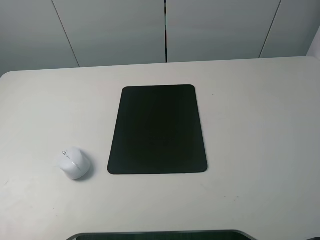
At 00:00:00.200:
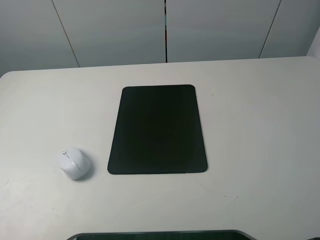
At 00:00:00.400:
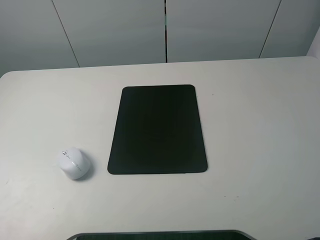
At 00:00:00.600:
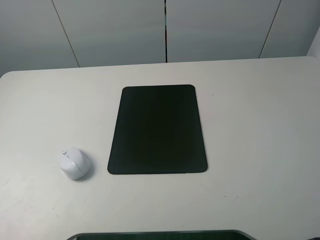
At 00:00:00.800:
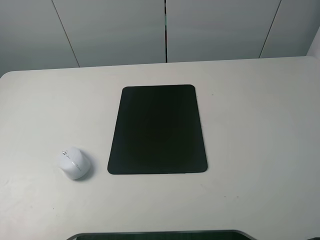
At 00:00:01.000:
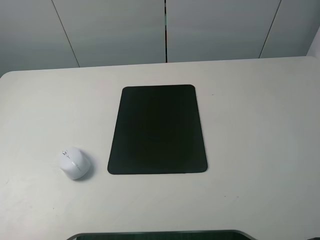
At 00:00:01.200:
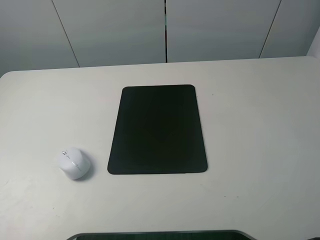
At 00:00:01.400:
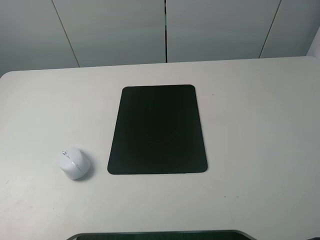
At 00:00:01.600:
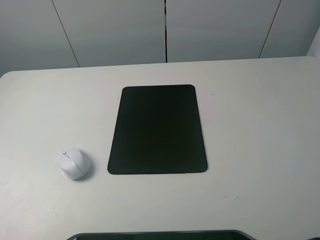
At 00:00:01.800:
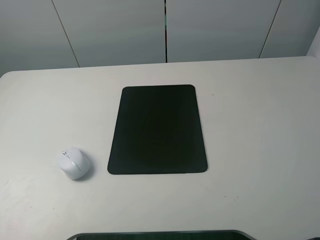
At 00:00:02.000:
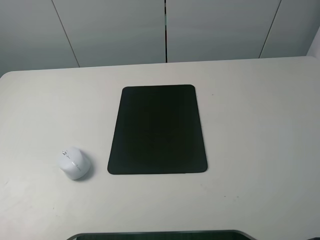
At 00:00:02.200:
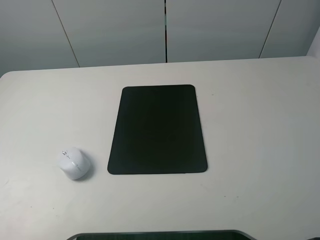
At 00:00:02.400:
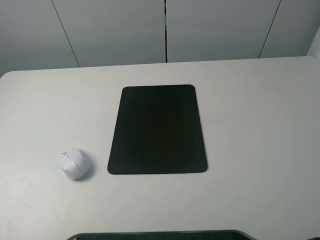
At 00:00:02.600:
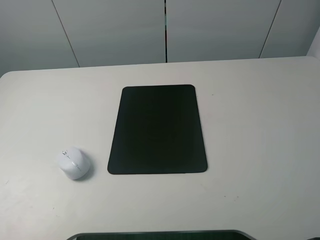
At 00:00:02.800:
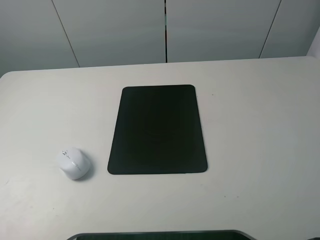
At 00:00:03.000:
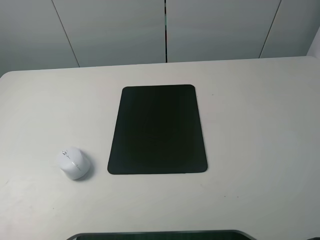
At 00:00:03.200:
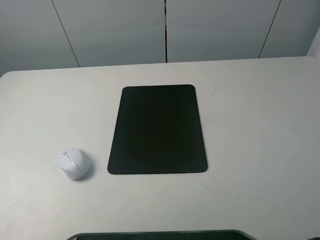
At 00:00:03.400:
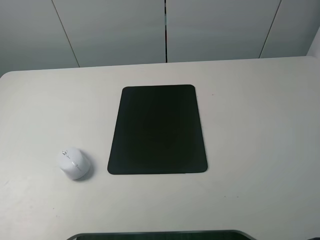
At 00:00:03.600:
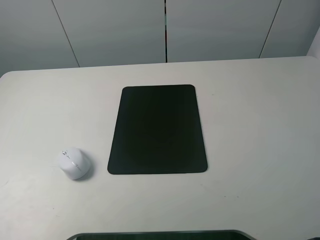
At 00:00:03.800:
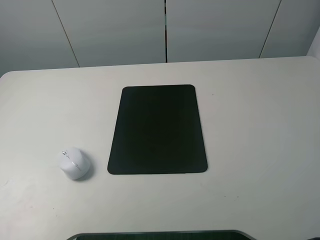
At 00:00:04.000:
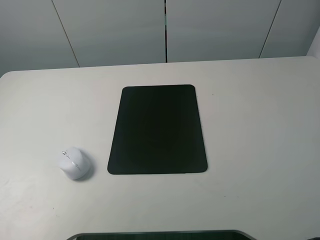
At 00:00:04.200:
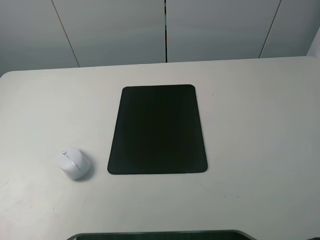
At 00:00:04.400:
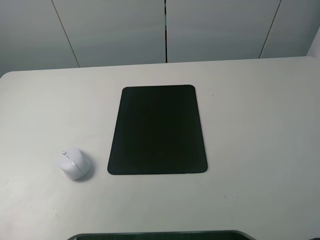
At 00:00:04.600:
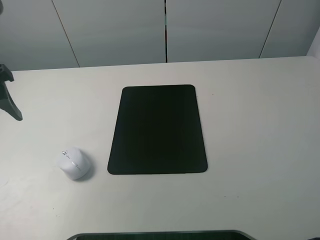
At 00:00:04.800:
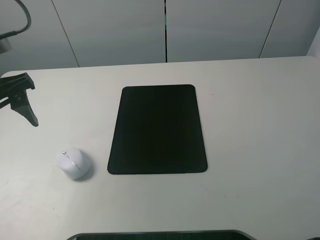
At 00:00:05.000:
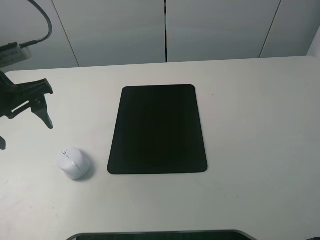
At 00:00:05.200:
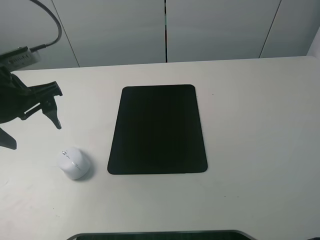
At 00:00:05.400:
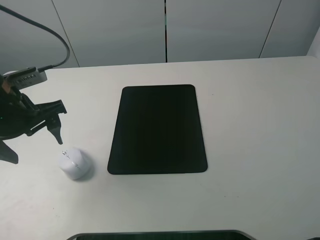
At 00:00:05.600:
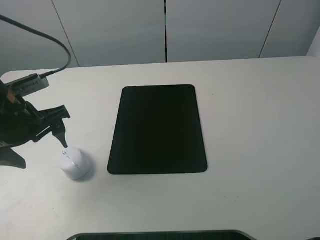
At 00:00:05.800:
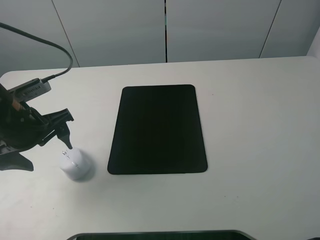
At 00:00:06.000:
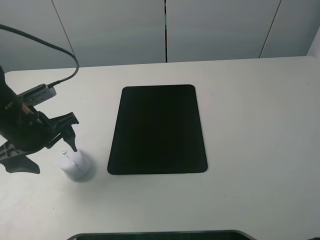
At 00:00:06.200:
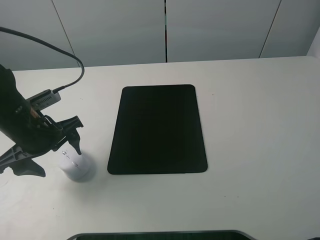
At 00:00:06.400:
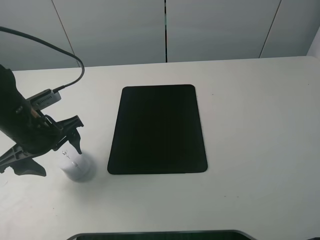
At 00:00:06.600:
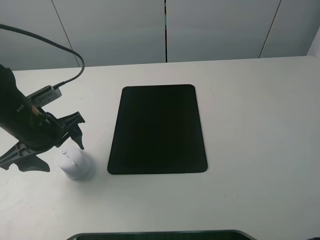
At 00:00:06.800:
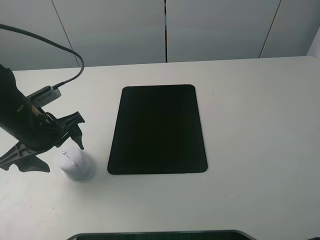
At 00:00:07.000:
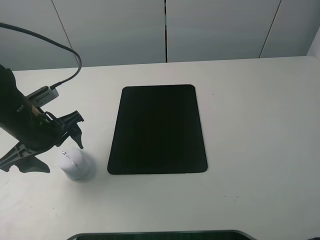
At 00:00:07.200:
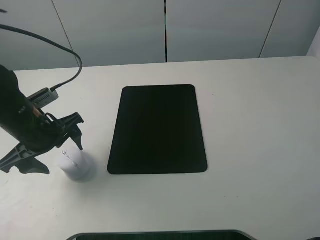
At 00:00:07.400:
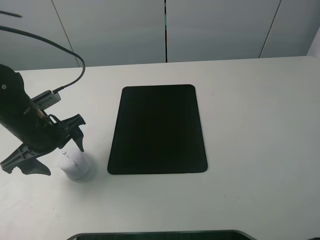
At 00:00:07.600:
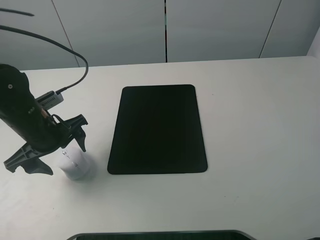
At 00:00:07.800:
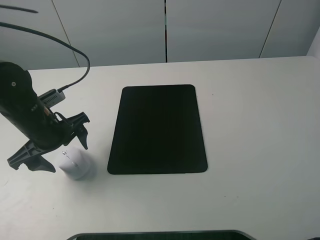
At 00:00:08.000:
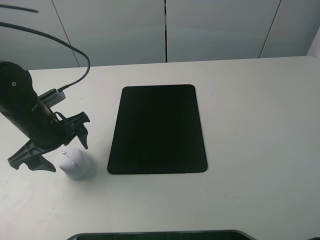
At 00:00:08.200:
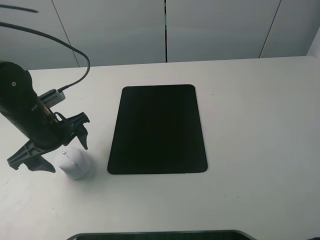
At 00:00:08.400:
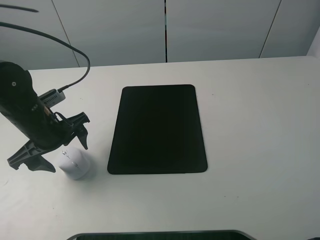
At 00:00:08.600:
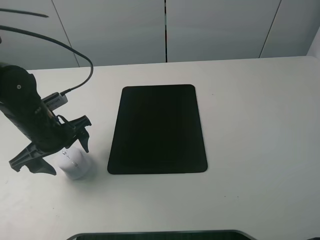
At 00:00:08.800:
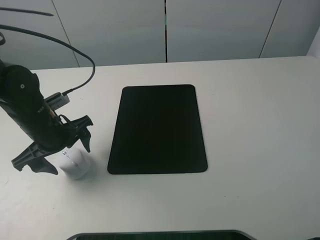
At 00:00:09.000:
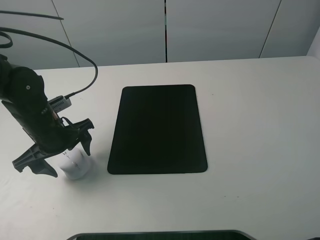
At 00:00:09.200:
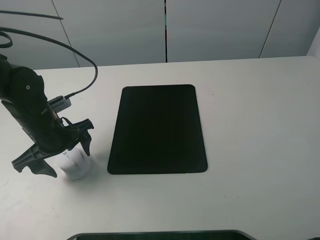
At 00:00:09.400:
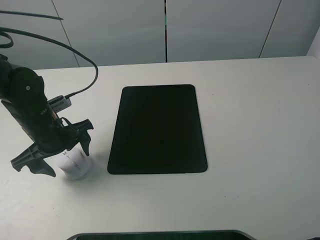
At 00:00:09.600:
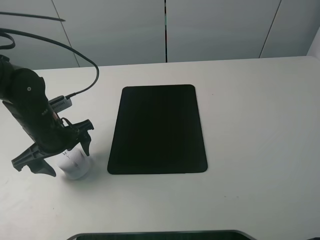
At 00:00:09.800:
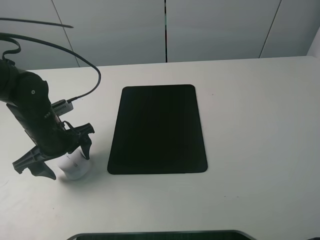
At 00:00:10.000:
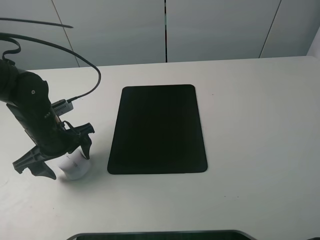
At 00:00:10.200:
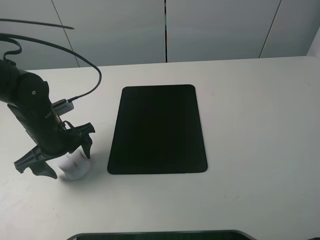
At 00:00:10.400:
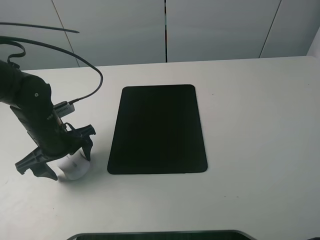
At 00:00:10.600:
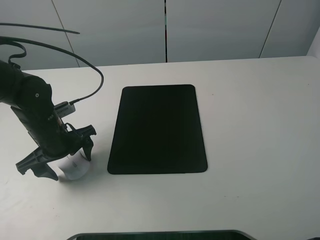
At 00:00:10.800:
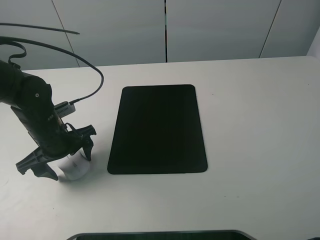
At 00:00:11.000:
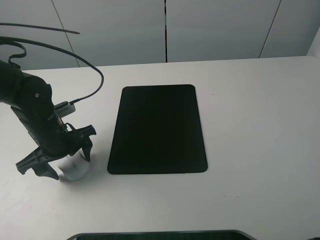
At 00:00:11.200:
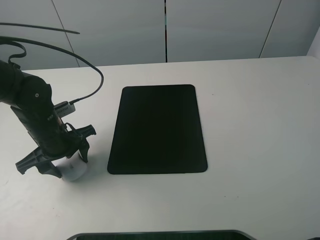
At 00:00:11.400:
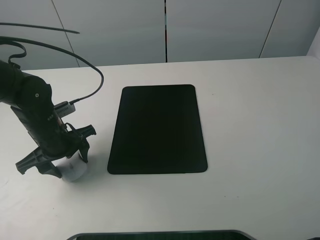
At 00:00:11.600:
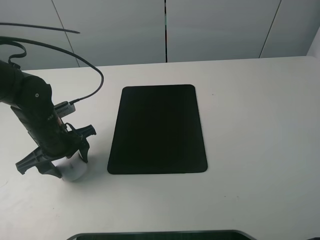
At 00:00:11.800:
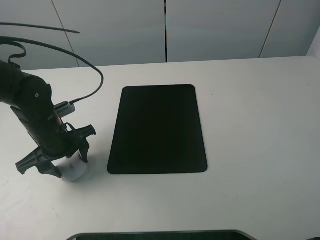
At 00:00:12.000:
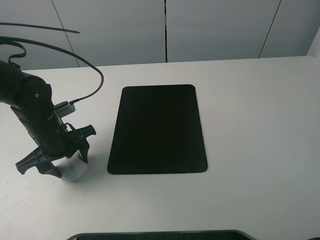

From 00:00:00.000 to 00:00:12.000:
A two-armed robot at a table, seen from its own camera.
Step, from 00:00:00.000 to 00:00:11.600: Grasp the mouse with the left gripper.
From 00:00:00.000 to 00:00:01.600: The two grippers keep their place.
From 00:00:03.000 to 00:00:04.400: The left gripper moves forward, some 15 cm.
From 00:00:04.400 to 00:00:06.000: The left gripper travels downward and to the right by some 15 cm.
From 00:00:06.000 to 00:00:09.000: The grippers stay close to where they were, moving slightly.
From 00:00:09.000 to 00:00:10.400: The grippers make only small movements.
From 00:00:10.400 to 00:00:12.000: The left gripper closes its fingers.

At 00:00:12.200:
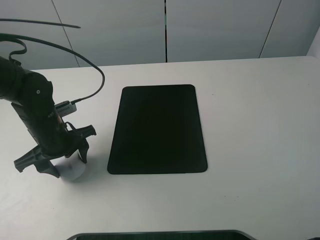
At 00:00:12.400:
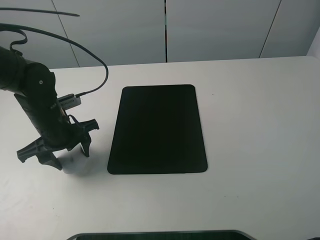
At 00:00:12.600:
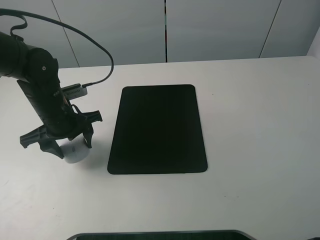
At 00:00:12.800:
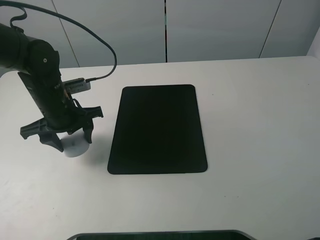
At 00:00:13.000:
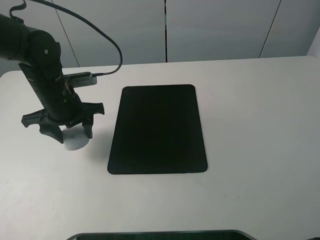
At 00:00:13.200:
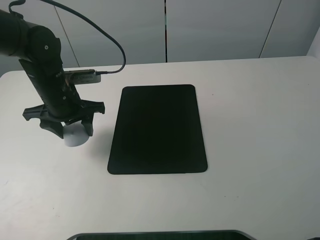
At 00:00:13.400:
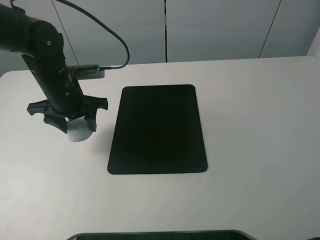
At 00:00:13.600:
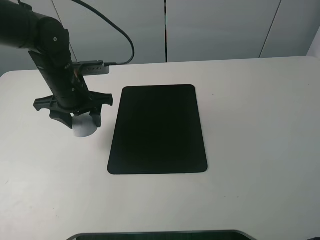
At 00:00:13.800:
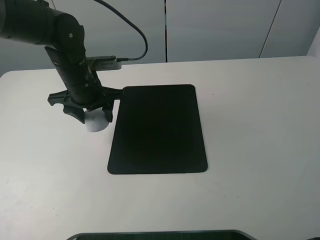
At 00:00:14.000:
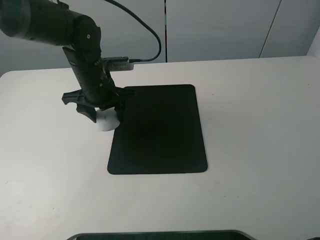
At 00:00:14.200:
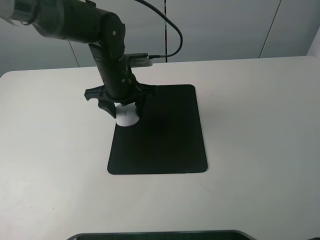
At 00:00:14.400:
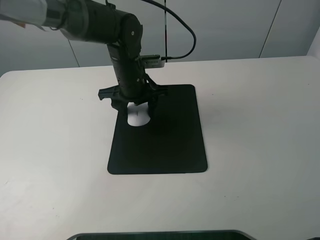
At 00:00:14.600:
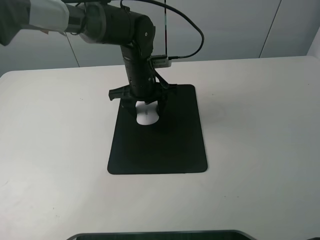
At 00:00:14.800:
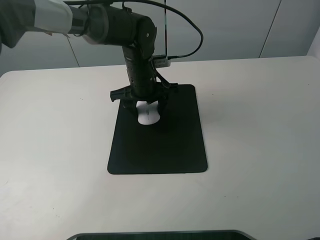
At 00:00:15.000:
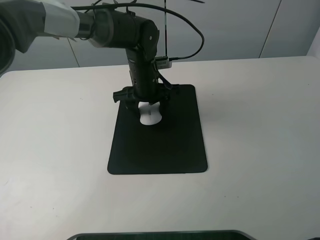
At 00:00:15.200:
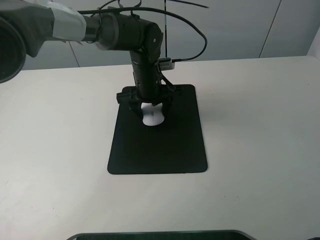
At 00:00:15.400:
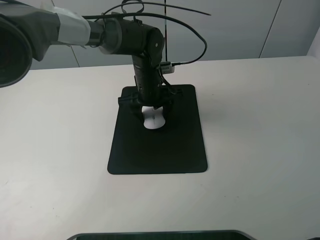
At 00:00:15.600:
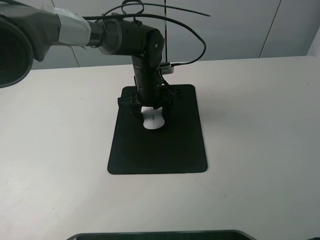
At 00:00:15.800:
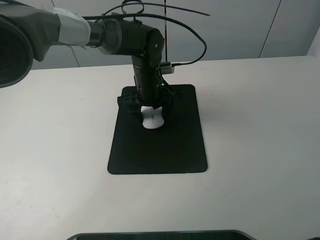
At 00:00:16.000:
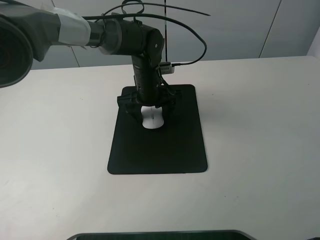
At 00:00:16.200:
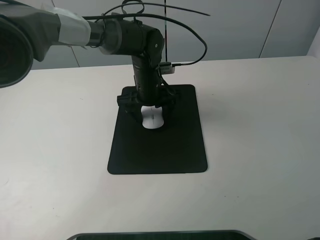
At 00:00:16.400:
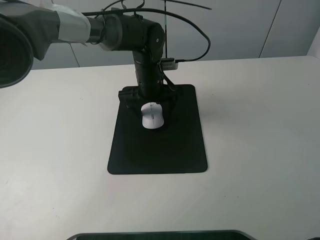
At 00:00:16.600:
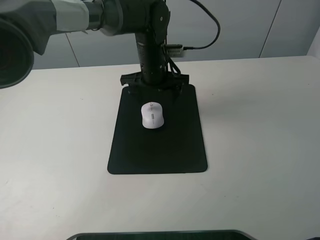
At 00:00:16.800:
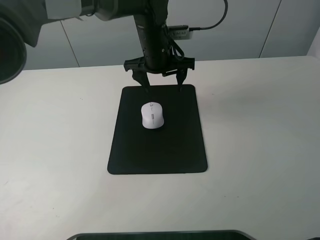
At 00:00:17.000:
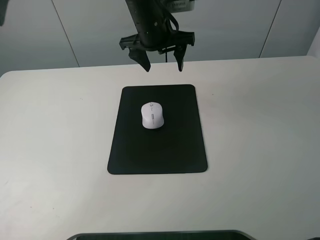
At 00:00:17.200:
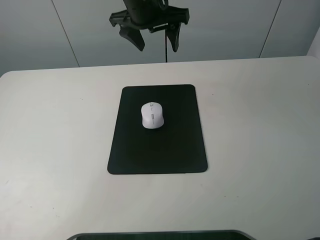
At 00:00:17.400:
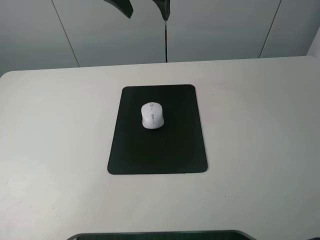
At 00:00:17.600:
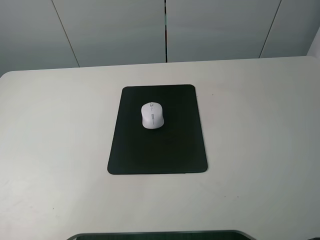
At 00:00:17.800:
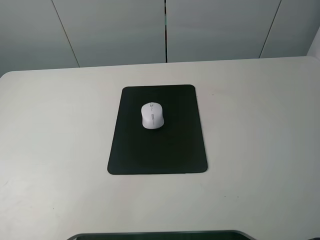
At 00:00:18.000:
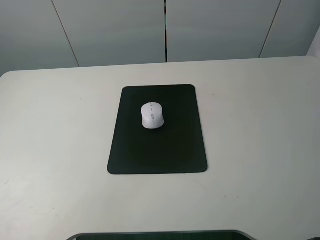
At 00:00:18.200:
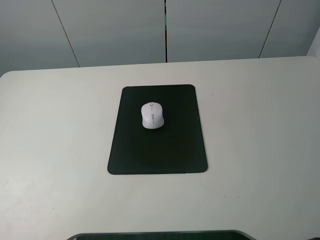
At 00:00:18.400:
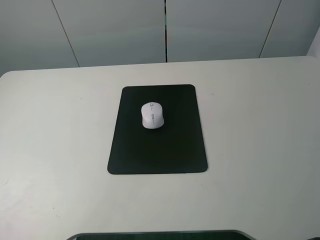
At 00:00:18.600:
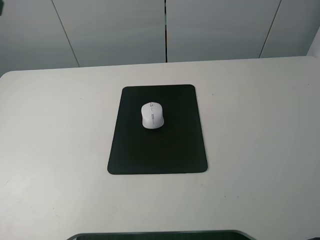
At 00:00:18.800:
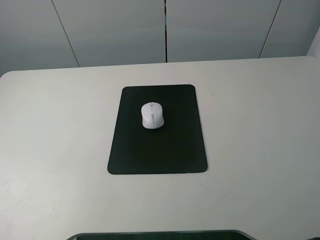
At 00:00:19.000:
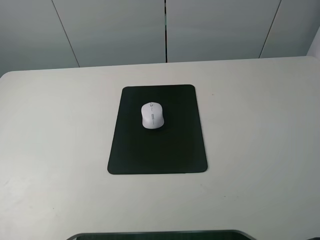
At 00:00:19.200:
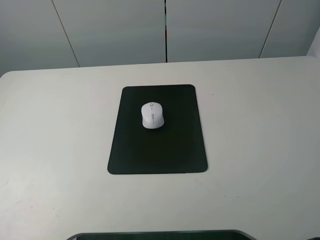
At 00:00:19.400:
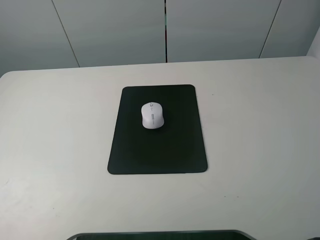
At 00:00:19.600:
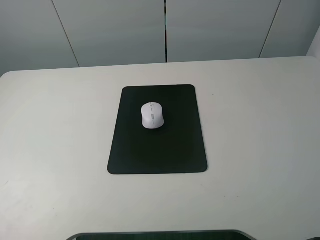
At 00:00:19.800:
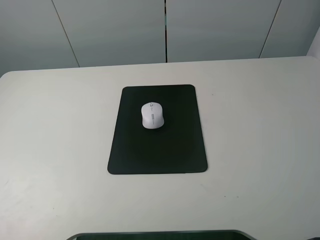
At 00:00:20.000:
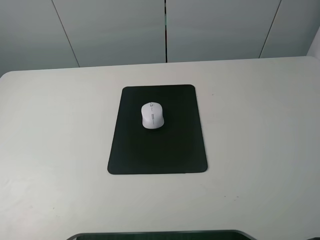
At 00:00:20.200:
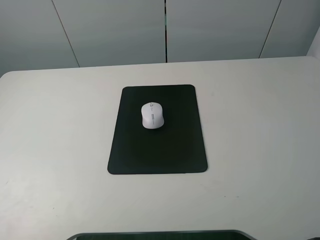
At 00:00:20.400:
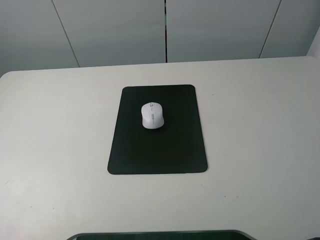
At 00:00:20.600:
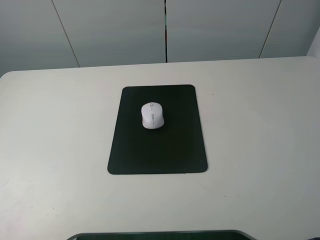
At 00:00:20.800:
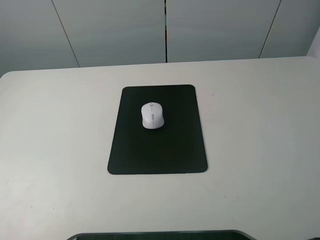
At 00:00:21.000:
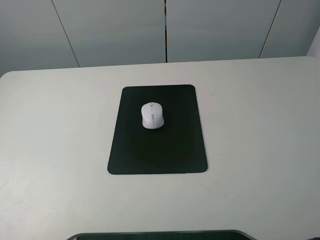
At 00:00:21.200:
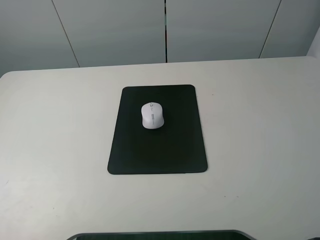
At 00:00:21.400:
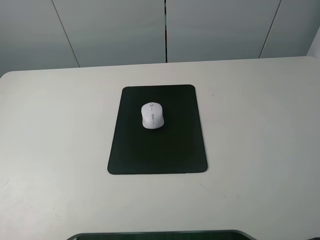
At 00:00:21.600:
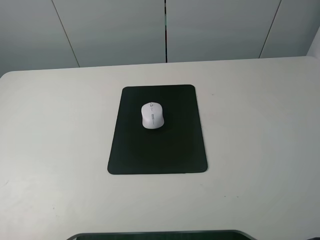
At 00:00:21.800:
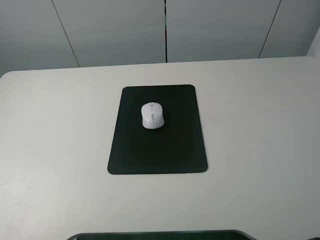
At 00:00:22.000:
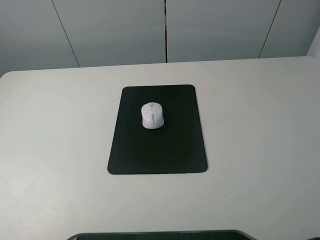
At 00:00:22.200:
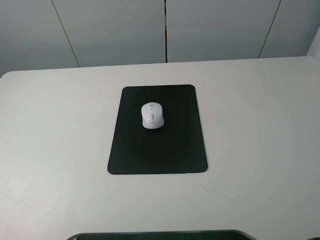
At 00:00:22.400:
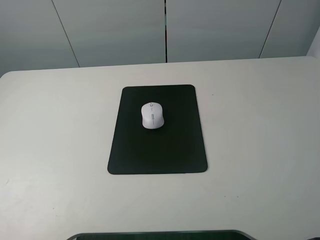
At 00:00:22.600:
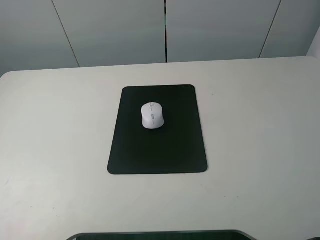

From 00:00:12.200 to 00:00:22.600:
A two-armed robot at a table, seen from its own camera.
Step, from 00:00:12.200 to 00:00:16.200: Place the mouse on the mouse mat with the left gripper.
From 00:00:12.200 to 00:00:13.600: The left gripper moves forward and upward, approximately 10 cm.
From 00:00:13.600 to 00:00:15.200: The left gripper is displaced to the right and forward by approximately 15 cm.
From 00:00:15.200 to 00:00:16.600: The left gripper changes place by roughly 5 cm, and opens up.
From 00:00:16.600 to 00:00:18.200: The left gripper heads upward, to the left and backward, covering some 30 cm.
From 00:00:21.200 to 00:00:22.600: Both grippers stay about where they are.
